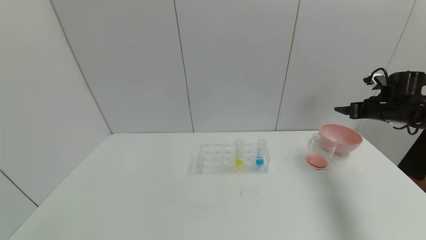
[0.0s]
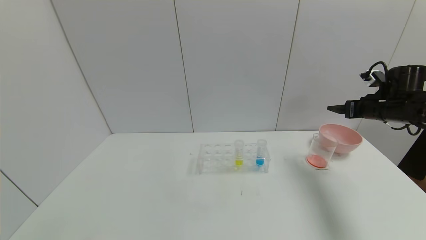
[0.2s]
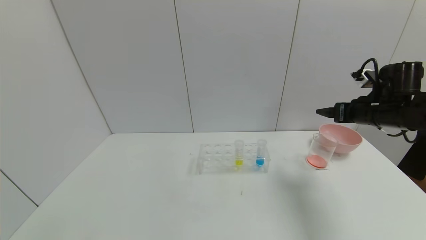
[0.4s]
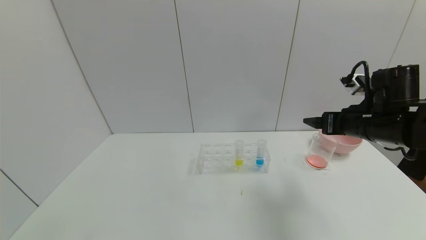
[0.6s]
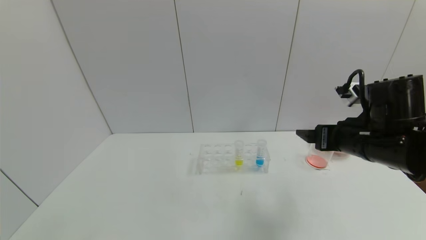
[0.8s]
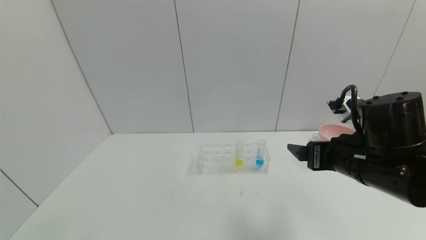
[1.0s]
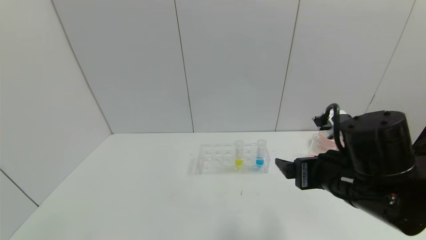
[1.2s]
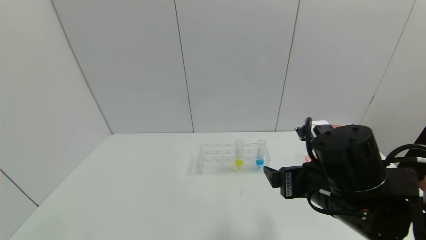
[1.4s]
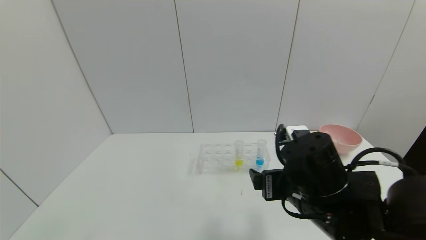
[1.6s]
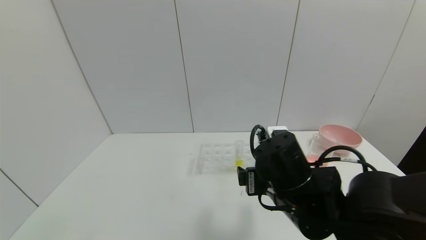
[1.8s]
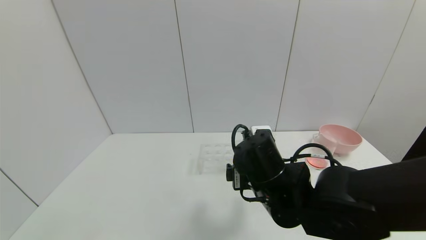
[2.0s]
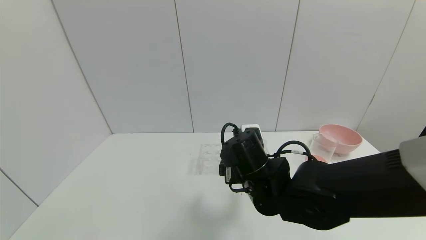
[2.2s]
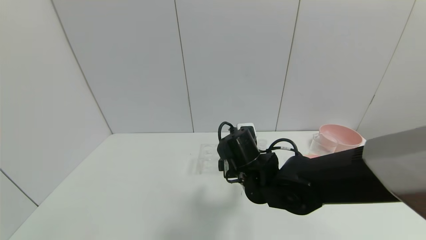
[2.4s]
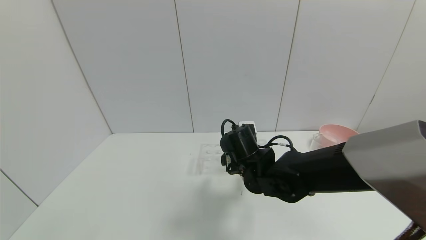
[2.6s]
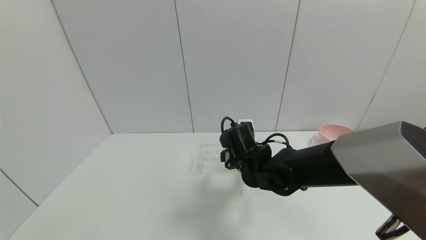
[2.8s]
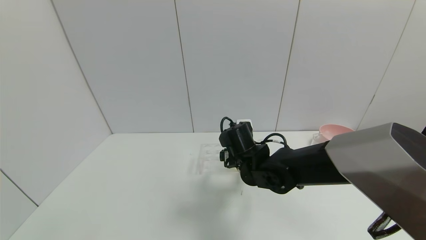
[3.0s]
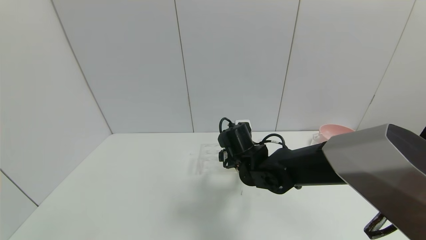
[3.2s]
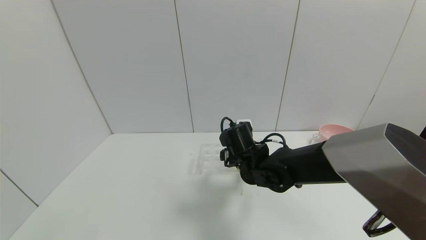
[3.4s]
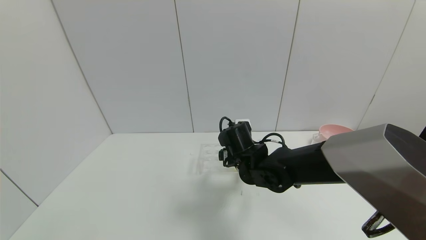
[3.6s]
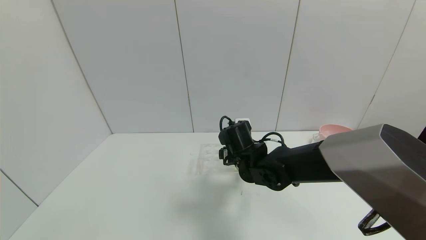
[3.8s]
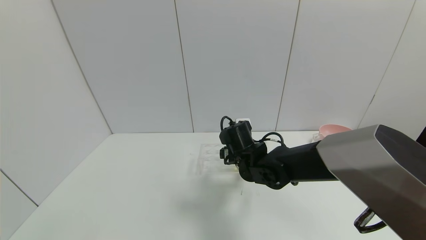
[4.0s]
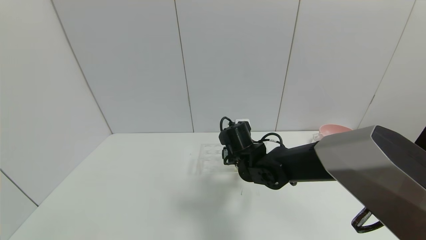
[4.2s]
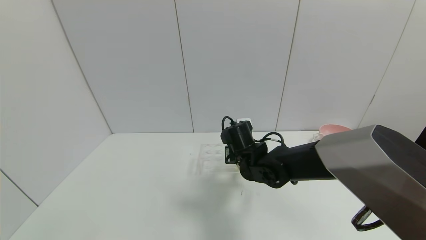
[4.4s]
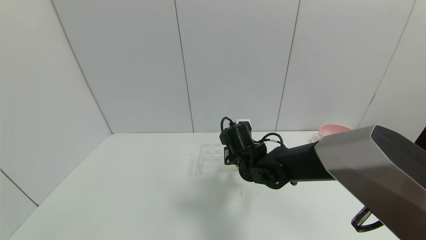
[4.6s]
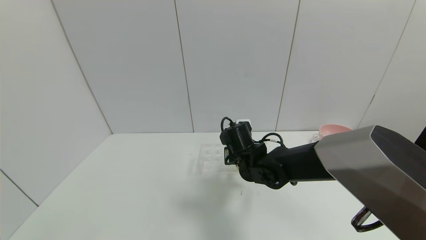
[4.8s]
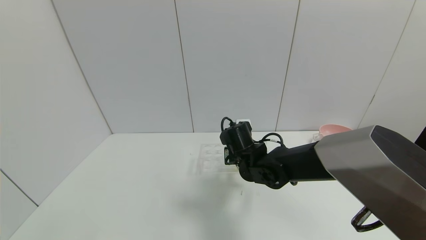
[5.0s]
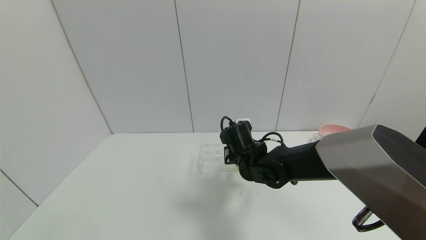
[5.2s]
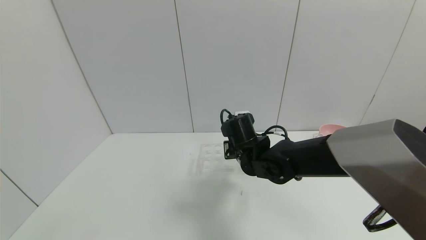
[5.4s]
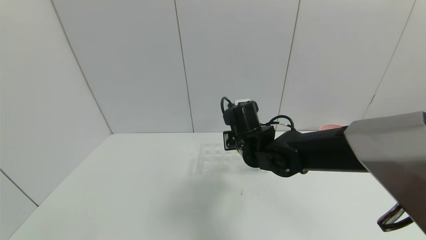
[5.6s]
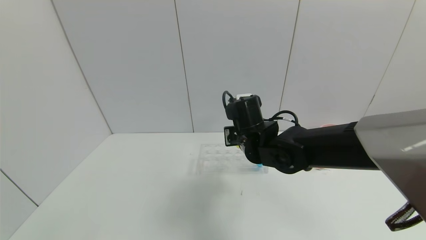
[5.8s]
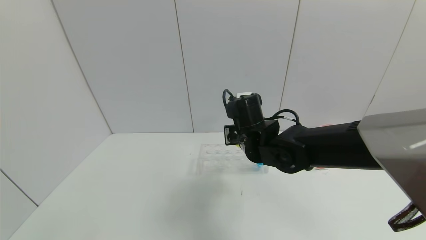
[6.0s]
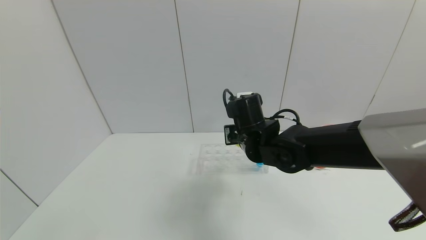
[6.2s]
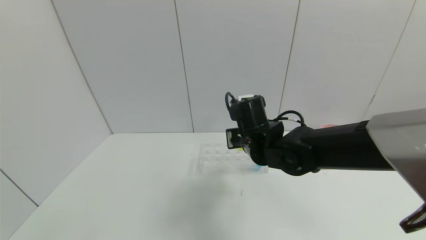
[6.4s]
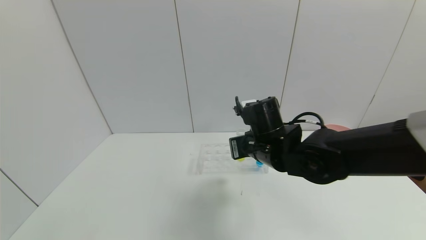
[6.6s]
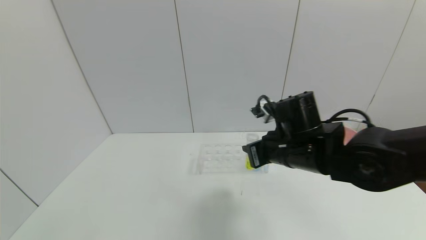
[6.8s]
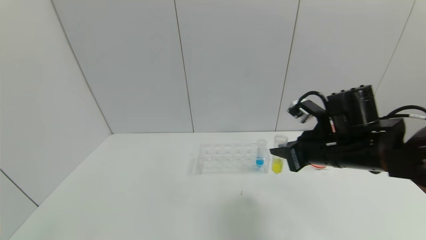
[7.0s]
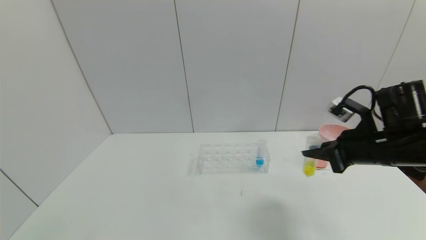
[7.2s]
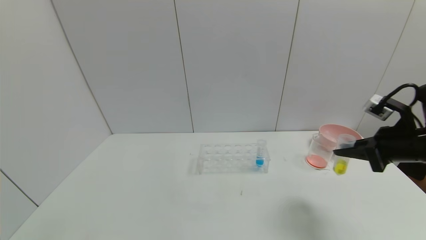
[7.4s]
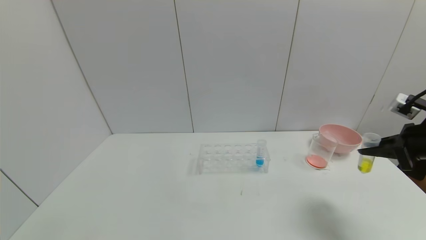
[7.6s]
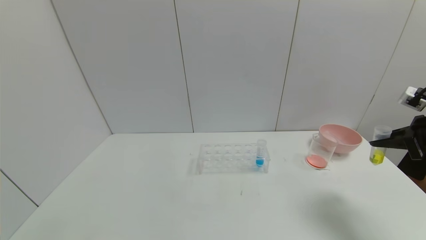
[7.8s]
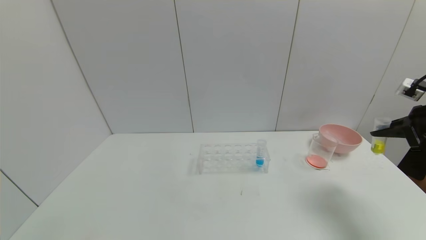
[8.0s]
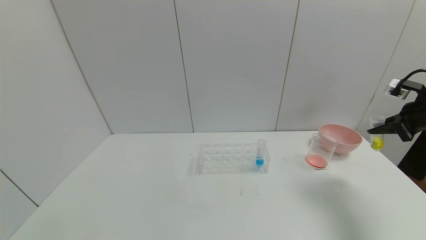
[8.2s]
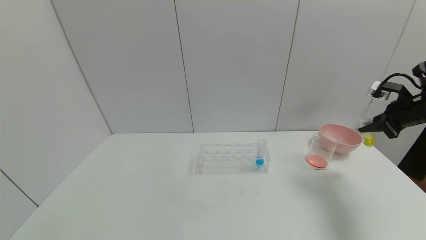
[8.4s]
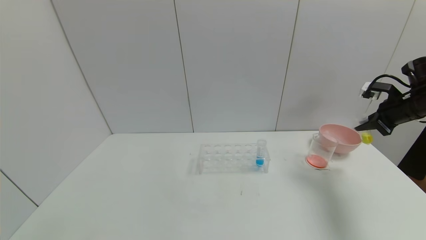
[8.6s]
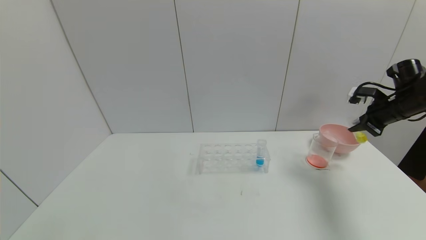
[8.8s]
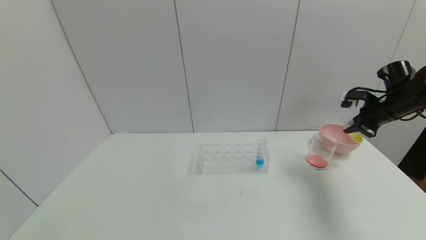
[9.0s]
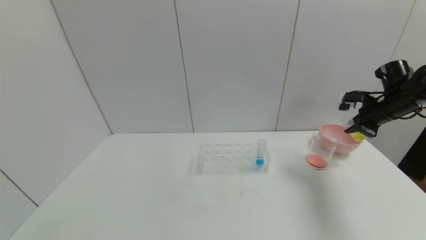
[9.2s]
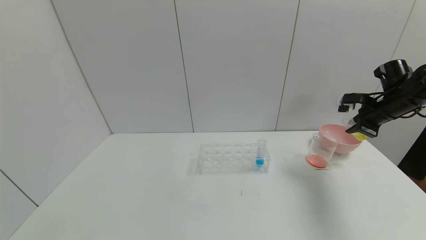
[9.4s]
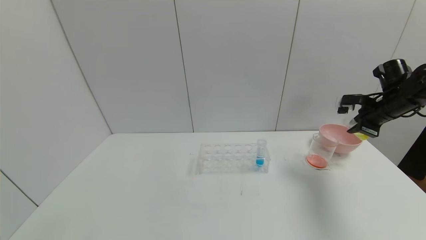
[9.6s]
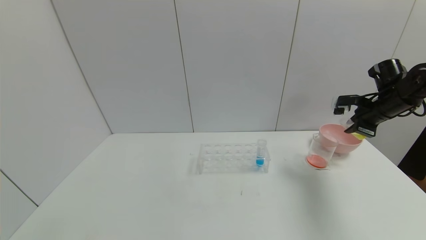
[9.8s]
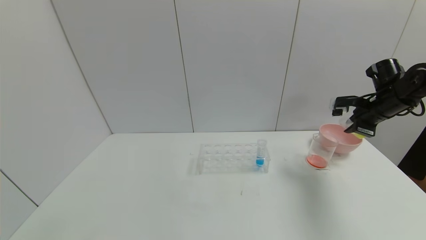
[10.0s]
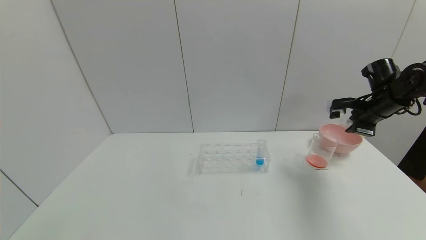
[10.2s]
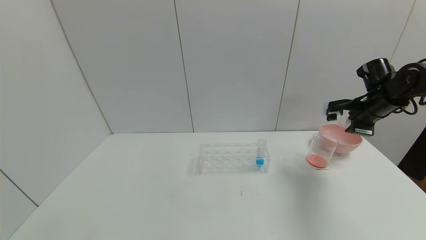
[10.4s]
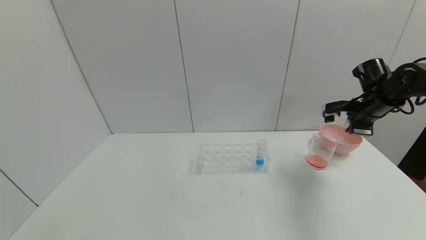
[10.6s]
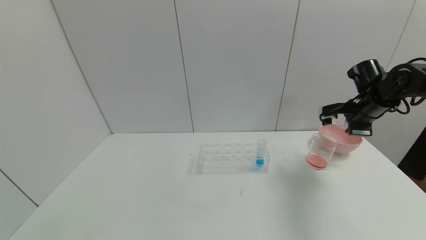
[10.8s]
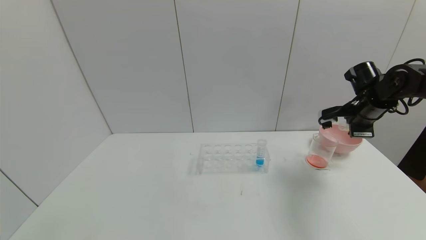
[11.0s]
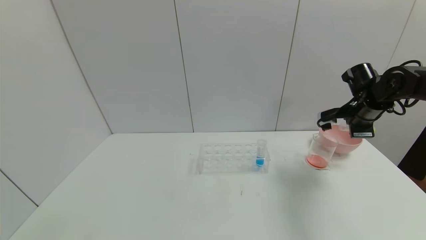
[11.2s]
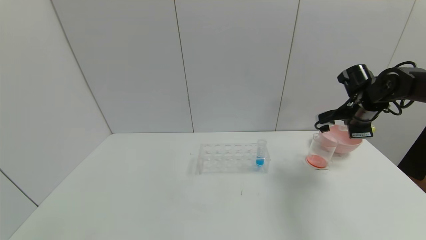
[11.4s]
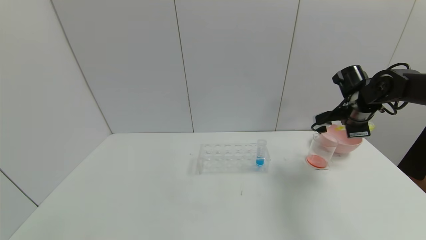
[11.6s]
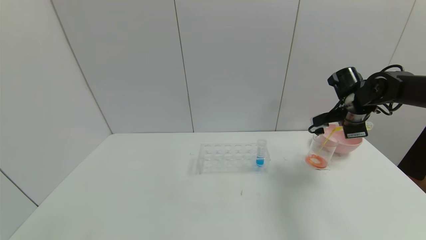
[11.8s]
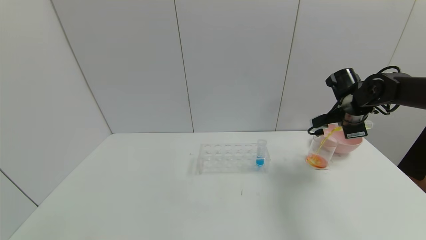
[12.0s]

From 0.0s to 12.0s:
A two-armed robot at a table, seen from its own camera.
Task of the whole recording: pick up the test tube with yellow pigment and the test tube with red pigment by grippers and pour them into the beaker.
Step, from 0.0s to 4.6s: Grasp the yellow reagent with the right gripper.
From 0.0s to 1.6s: The right gripper moves to the left and backward, about 40 cm.
From 1.6s to 3.0s: The right gripper goes about 15 cm forward, to the left and downward.
From 3.0s to 4.4s: The right gripper closes.
From 4.4s to 6.0s: The right gripper is displaced upward by approximately 5 cm, and closes.
From 6.0s to 7.6s: The right gripper goes about 35 cm to the right.
From 7.6s to 9.0s: The right gripper goes about 15 cm forward.
From 10.4s to 12.0s: The right gripper changes place by some 5 cm.

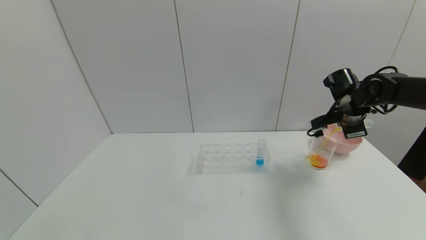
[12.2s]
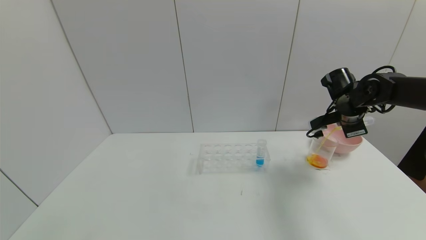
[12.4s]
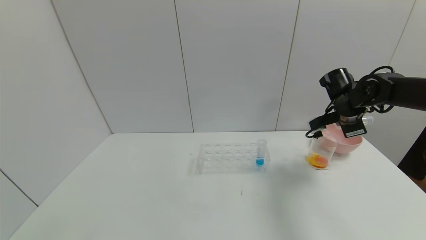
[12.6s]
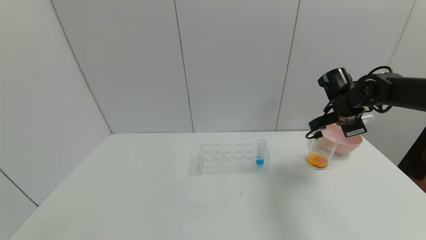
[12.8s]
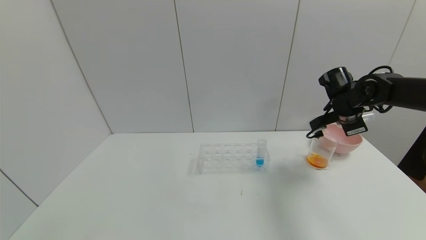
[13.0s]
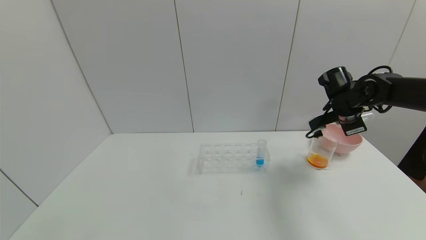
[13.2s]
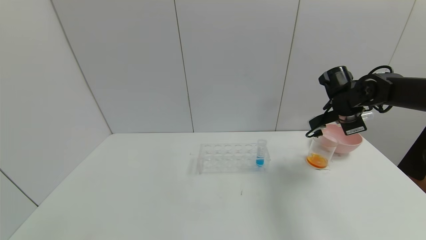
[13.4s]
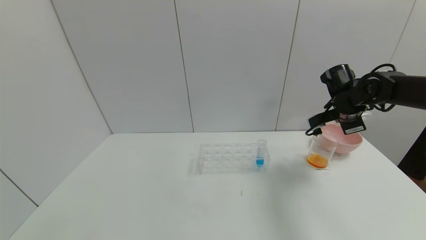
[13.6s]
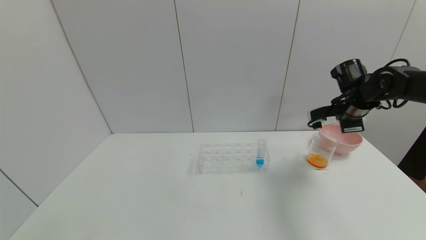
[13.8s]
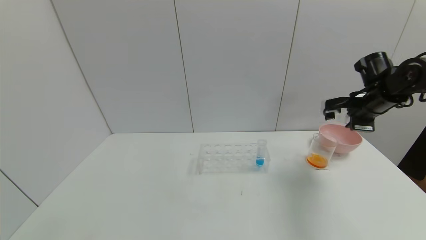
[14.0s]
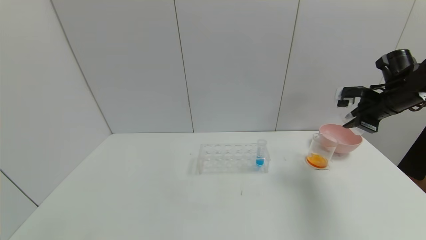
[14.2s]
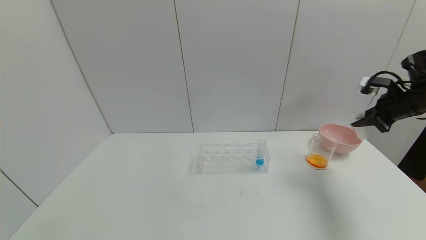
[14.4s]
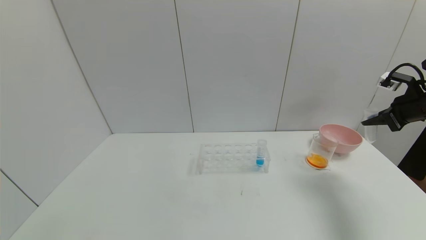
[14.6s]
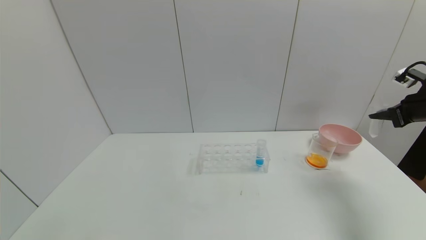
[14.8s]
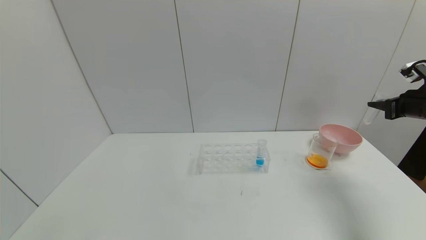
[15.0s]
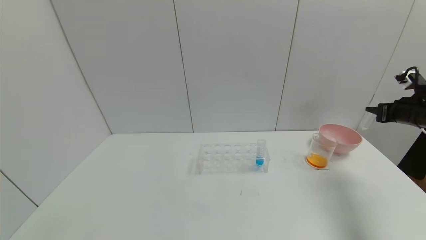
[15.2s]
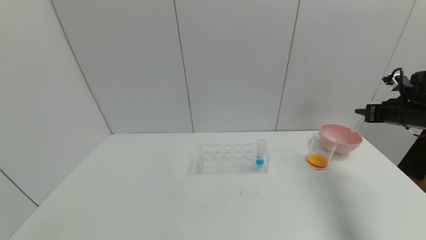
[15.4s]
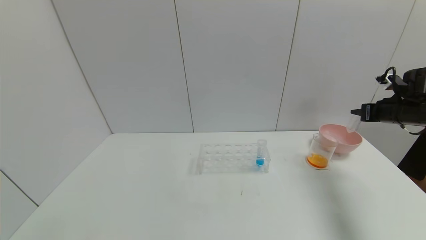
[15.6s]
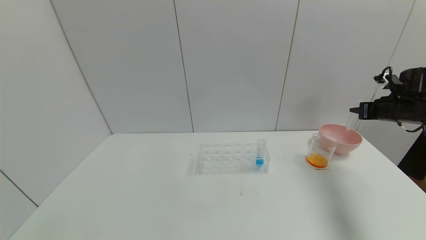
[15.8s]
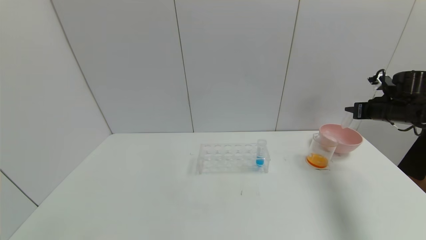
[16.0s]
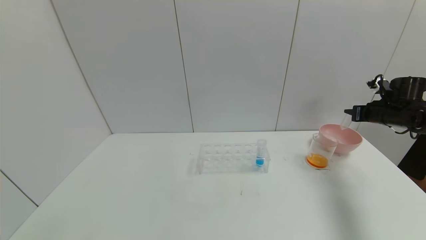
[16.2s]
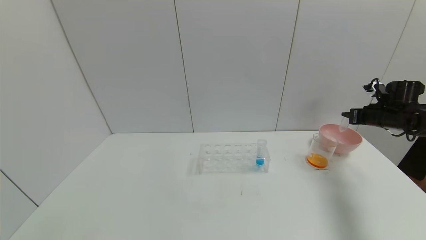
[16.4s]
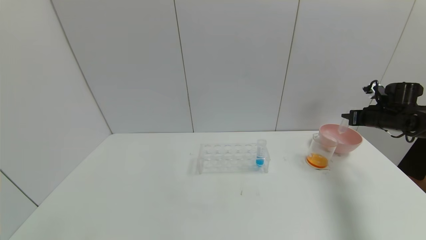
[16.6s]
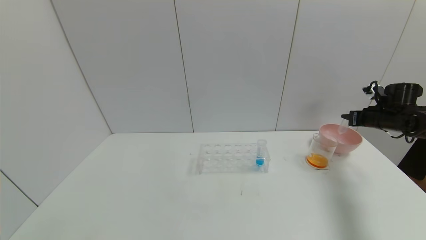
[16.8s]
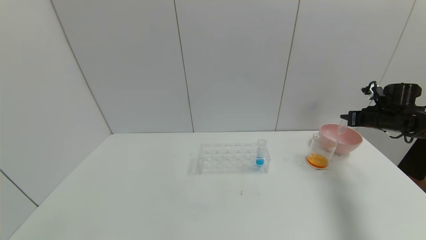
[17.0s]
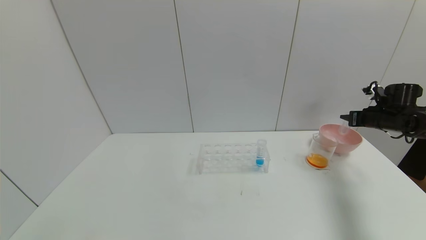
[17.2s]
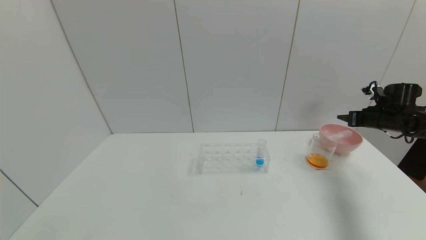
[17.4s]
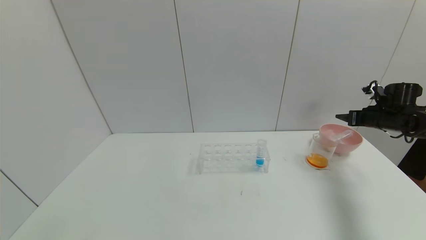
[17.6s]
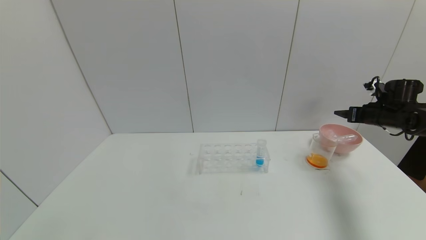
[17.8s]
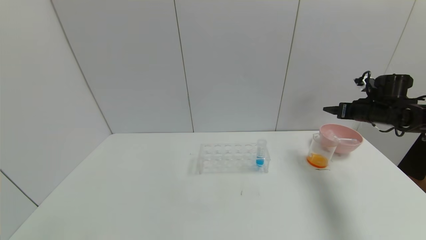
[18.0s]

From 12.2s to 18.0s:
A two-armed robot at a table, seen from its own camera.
Task of the whole recording: pick up the test tube with yellow pigment and the test tube with red pigment by grippers and pour them into the beaker.
Step, from 13.0s to 17.4s: Place the test tube into the pink bowl with the right gripper.
From 12.2s to 13.6s: There are only small adjustments of the grippers.
From 13.6s to 15.0s: The right gripper goes about 20 cm to the right and backward.
From 15.0s to 16.6s: The right gripper is displaced forward and downward by approximately 10 cm.
From 16.6s to 18.0s: The right gripper opens up.
